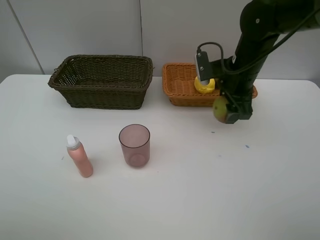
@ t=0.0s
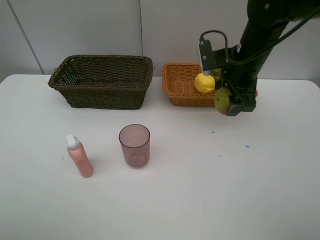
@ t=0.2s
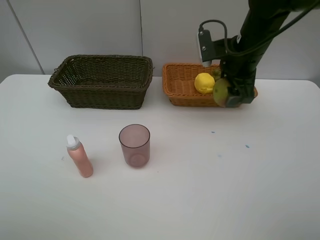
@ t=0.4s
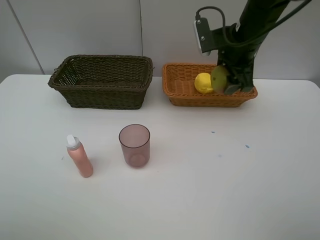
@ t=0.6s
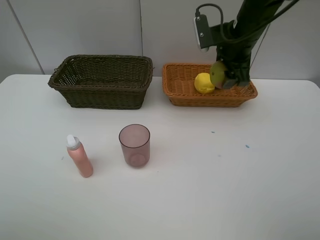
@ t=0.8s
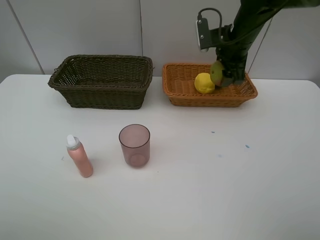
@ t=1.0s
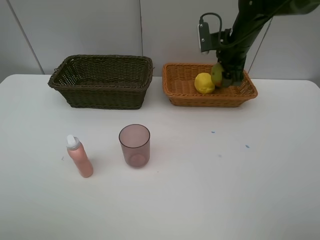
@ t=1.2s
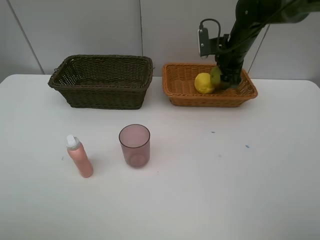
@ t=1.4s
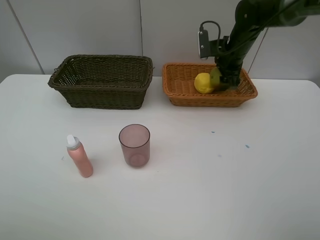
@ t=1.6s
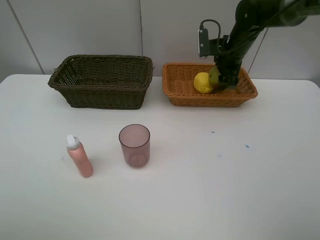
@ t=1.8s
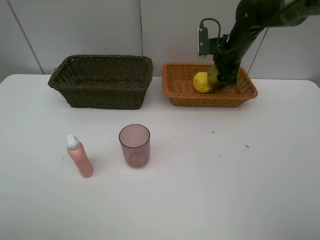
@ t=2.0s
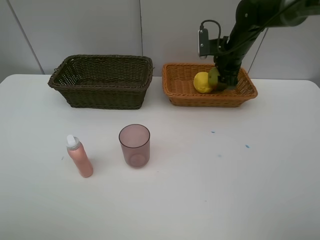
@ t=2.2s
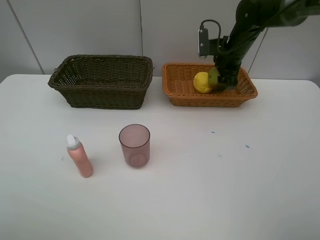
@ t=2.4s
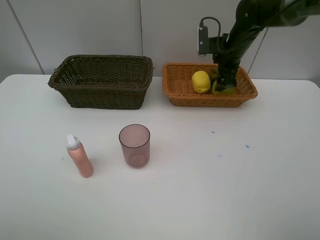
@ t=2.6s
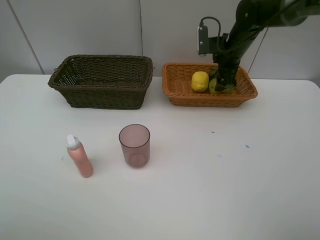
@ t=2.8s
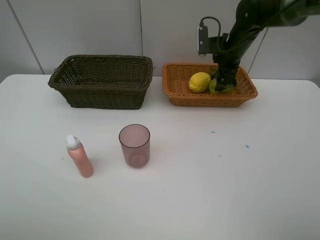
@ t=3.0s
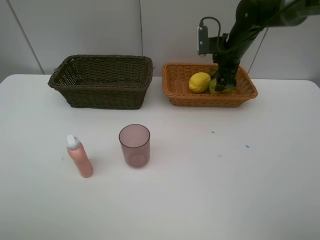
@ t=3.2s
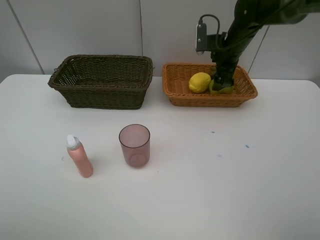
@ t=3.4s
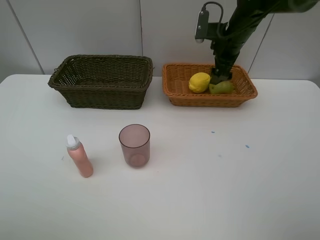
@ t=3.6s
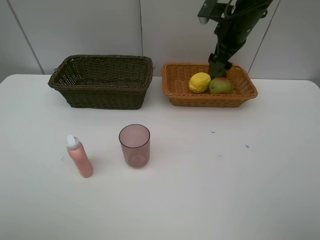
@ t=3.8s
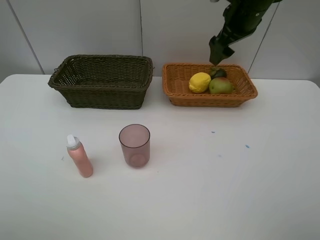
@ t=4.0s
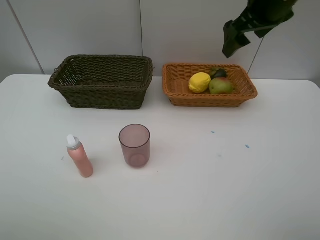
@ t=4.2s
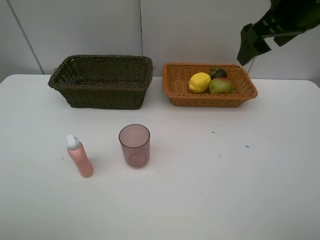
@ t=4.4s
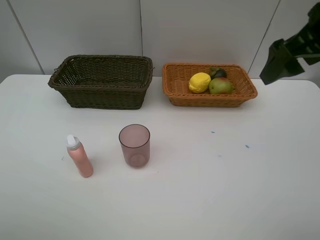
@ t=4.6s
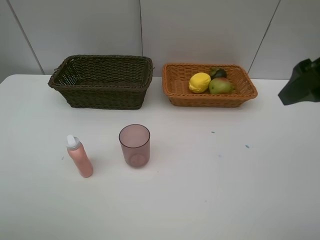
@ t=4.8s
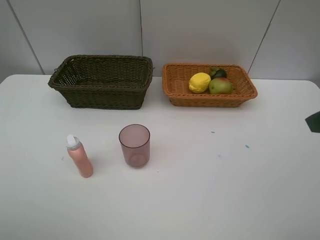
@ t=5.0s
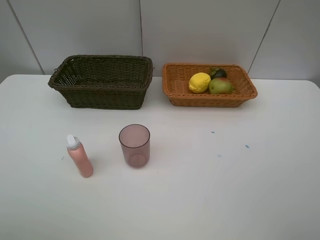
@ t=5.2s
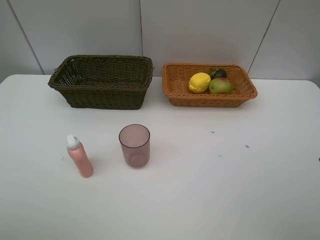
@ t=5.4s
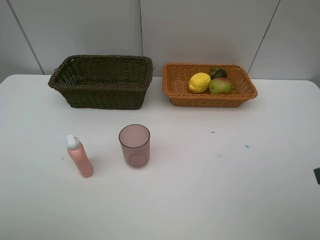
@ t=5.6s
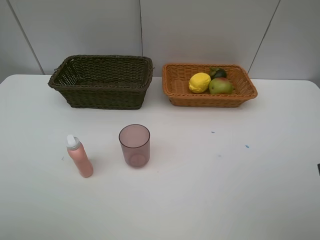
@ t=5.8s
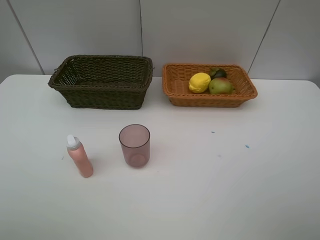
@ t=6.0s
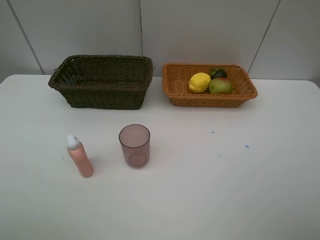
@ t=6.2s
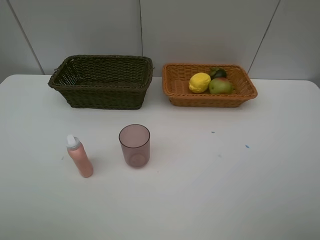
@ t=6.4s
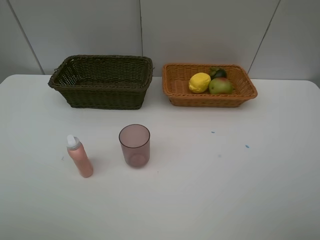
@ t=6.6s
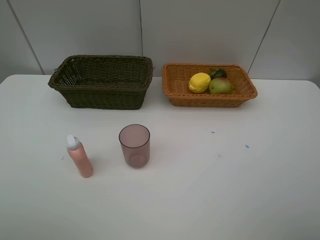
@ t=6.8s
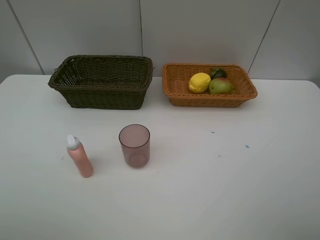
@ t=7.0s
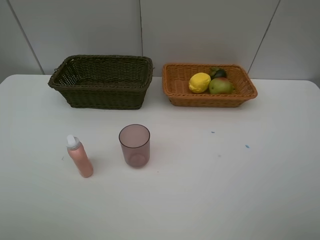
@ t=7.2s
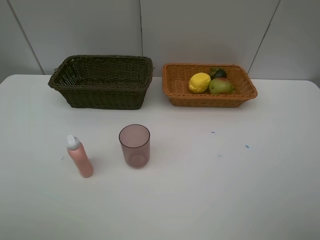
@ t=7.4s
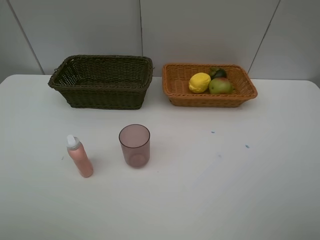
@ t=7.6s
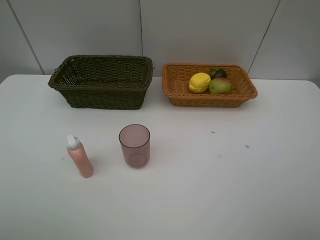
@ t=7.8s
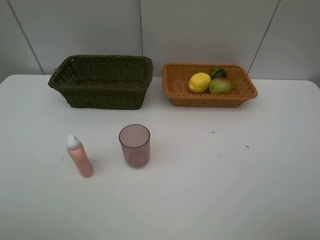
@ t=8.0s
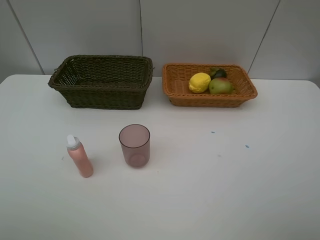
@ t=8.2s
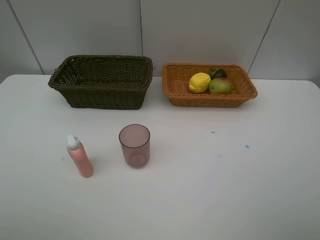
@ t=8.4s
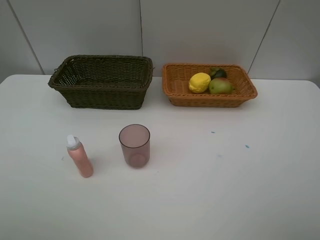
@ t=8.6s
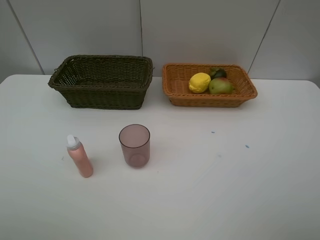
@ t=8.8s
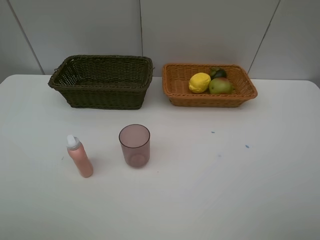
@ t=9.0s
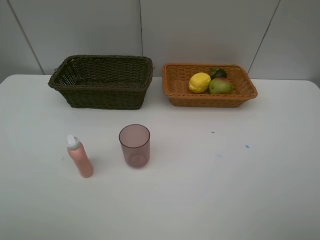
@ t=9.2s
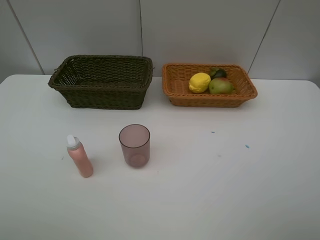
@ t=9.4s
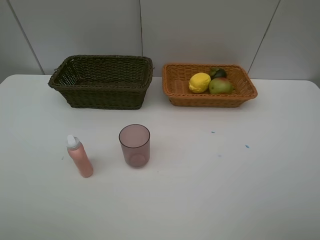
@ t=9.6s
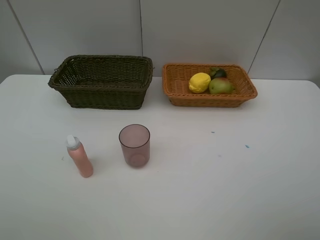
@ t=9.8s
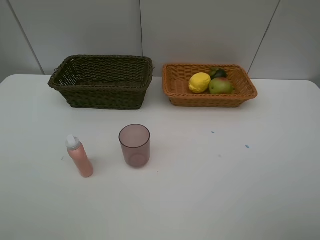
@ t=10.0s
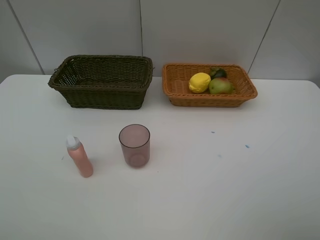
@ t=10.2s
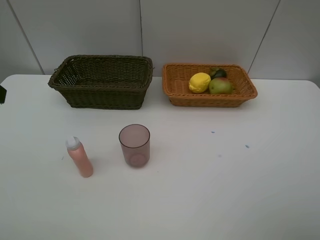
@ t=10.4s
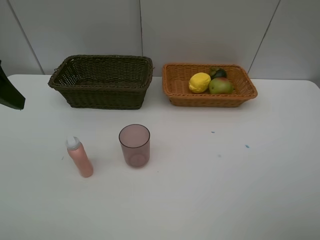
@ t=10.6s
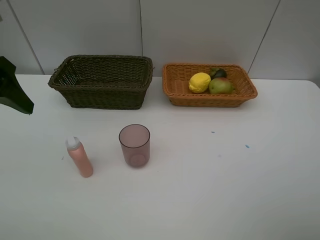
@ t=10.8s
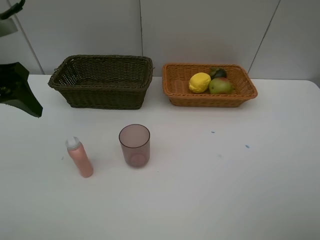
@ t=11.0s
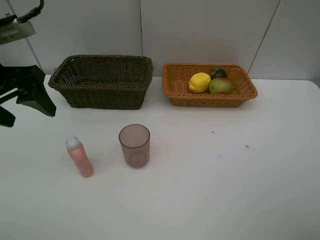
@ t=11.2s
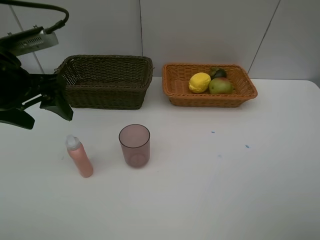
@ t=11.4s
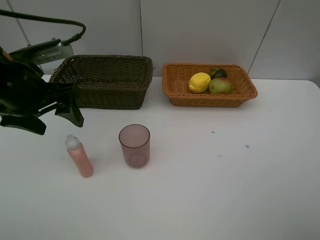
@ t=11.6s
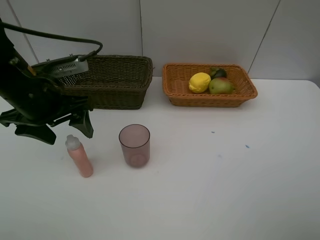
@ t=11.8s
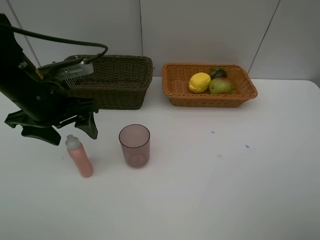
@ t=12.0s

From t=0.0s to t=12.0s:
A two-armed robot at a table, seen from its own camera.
Task of the whole recording: Place multiple objects separately in different baskets.
Step, from t=0.4s to t=3.6s: Place the pear in the light basket with right gripper.
From t=0.0s to t=1.6s: The right gripper goes approximately 10 cm forward.
From t=1.6s to t=3.0s: The right gripper opens its fingers.
From t=3.0s to t=4.4s: The right gripper is displaced backward and upward by some 20 cm.
From t=4.4s to t=6.0s: The right gripper shifts approximately 25 cm backward.
From t=7.6s to t=9.0s: Both grippers stay about where they are.
From t=10.4s to t=12.0s: The left gripper travels downward, forward and to the right by roughly 15 cm.

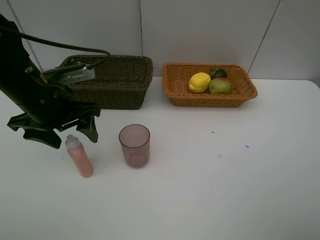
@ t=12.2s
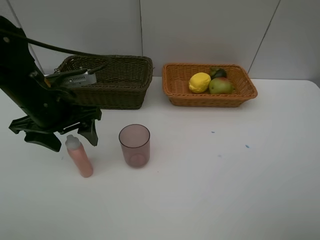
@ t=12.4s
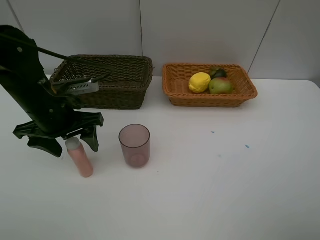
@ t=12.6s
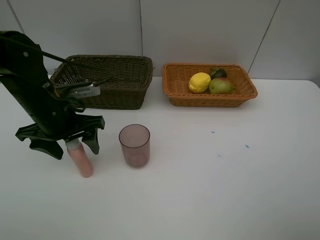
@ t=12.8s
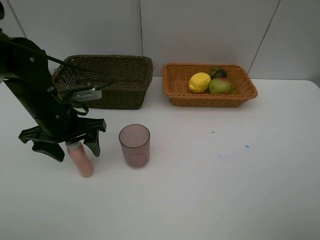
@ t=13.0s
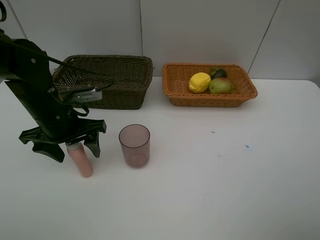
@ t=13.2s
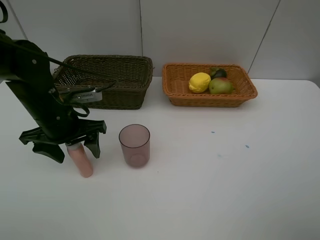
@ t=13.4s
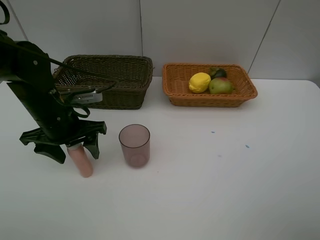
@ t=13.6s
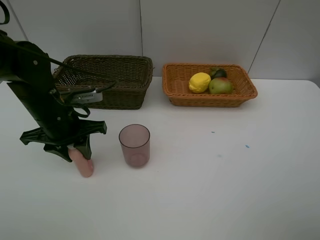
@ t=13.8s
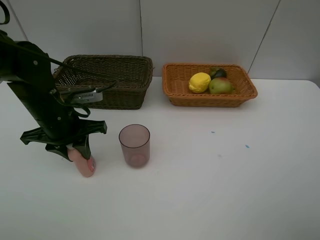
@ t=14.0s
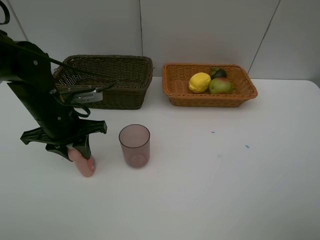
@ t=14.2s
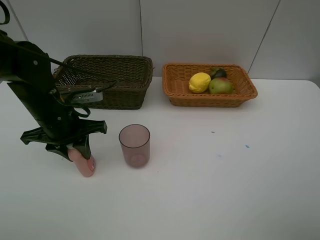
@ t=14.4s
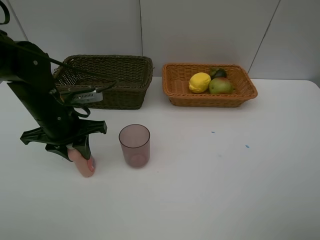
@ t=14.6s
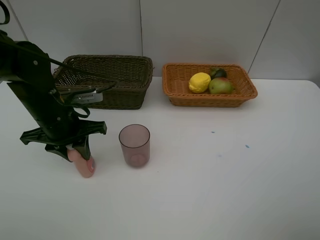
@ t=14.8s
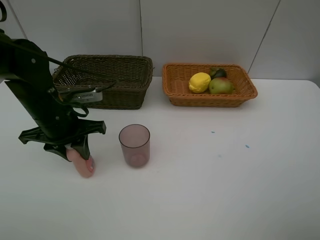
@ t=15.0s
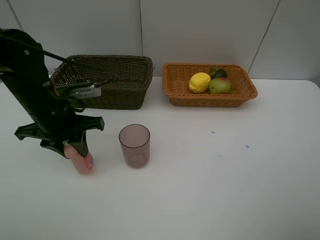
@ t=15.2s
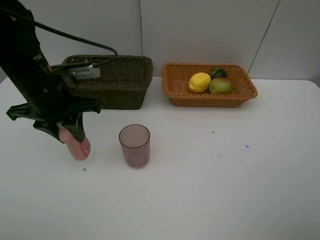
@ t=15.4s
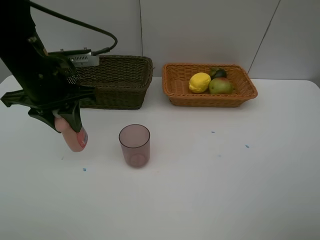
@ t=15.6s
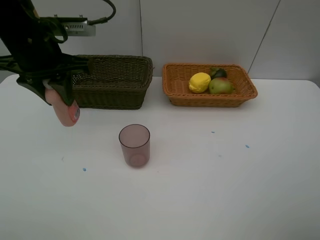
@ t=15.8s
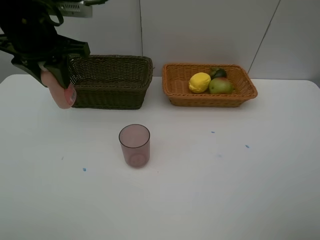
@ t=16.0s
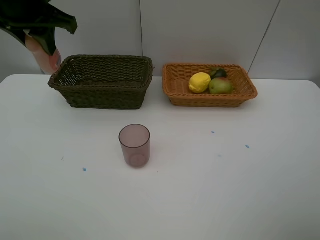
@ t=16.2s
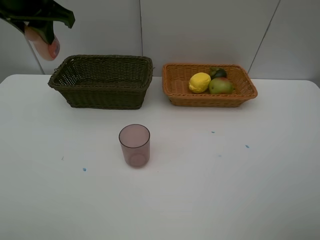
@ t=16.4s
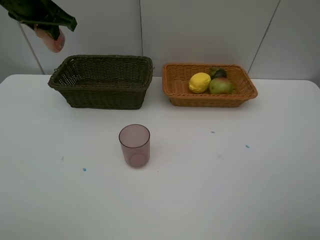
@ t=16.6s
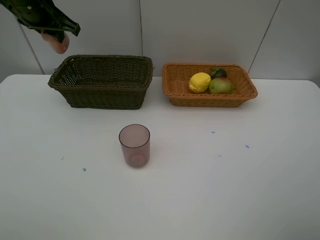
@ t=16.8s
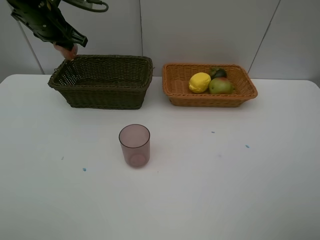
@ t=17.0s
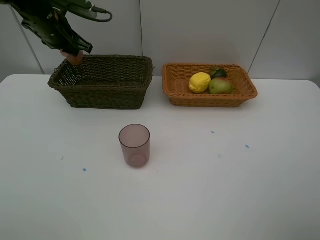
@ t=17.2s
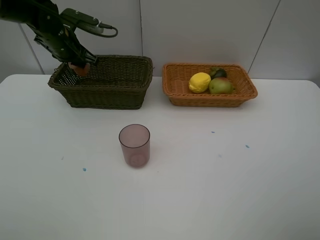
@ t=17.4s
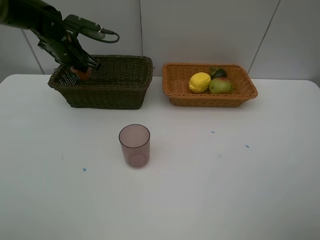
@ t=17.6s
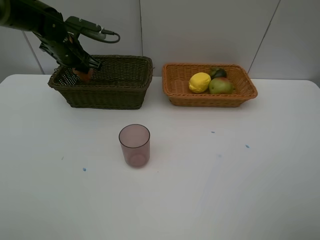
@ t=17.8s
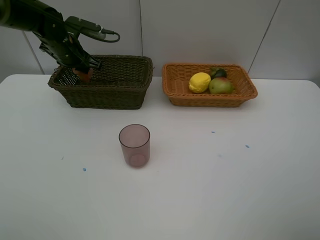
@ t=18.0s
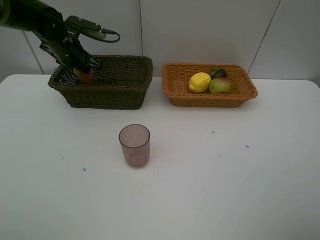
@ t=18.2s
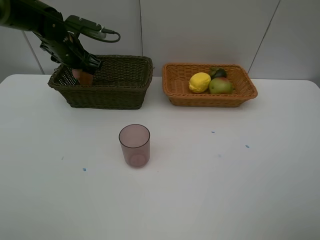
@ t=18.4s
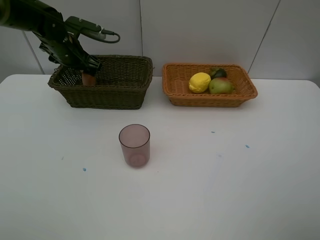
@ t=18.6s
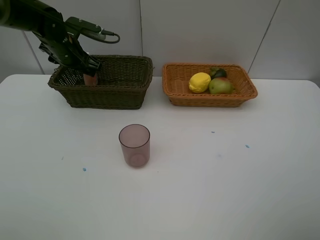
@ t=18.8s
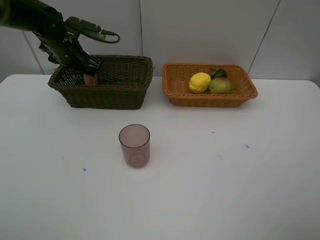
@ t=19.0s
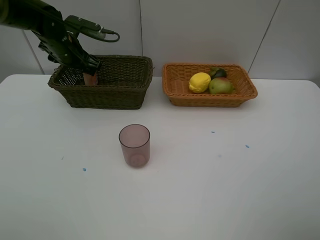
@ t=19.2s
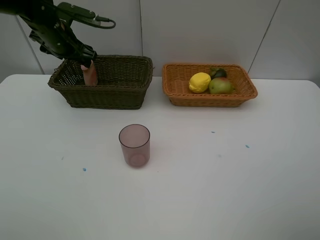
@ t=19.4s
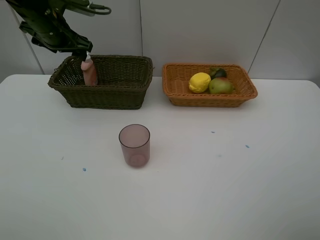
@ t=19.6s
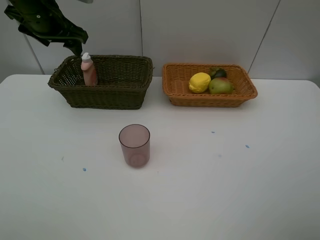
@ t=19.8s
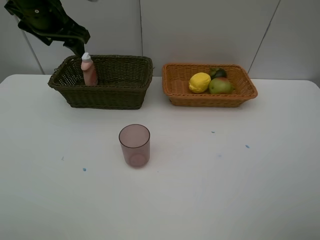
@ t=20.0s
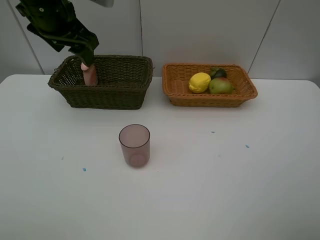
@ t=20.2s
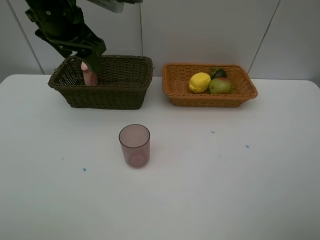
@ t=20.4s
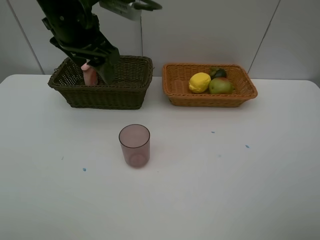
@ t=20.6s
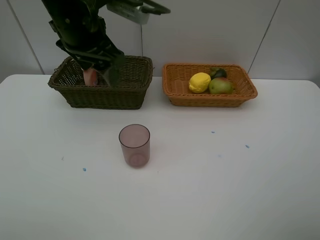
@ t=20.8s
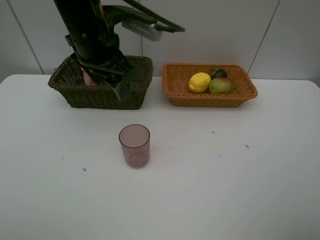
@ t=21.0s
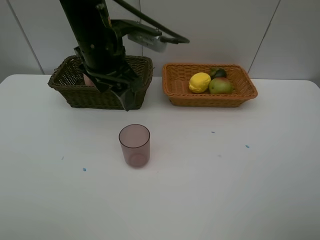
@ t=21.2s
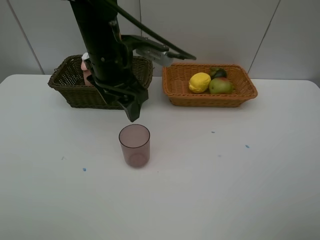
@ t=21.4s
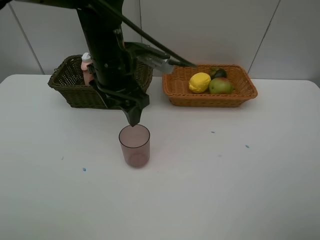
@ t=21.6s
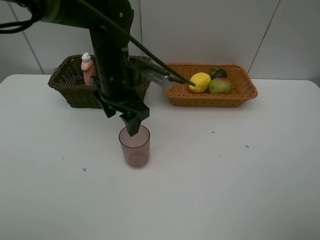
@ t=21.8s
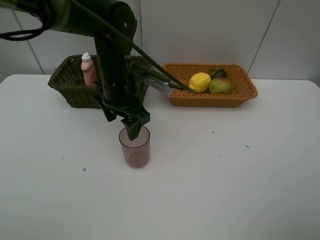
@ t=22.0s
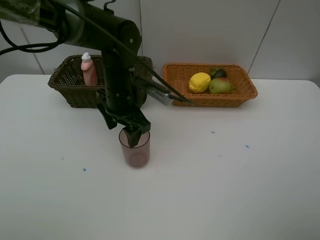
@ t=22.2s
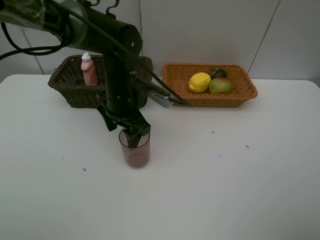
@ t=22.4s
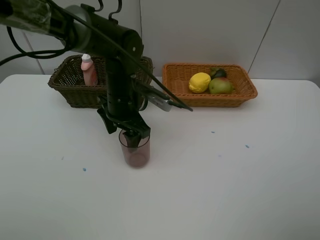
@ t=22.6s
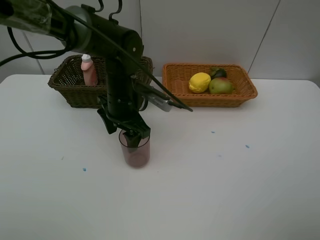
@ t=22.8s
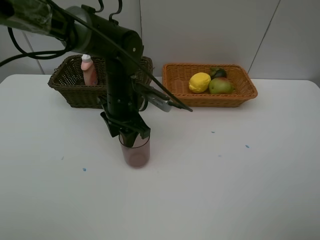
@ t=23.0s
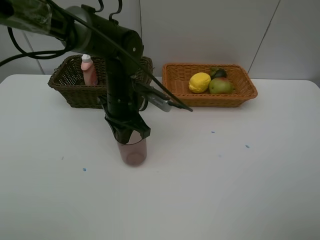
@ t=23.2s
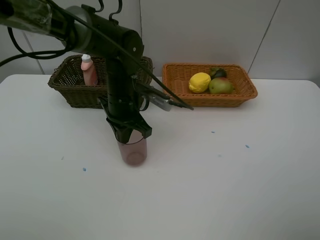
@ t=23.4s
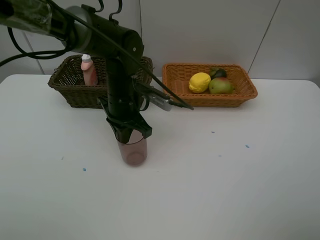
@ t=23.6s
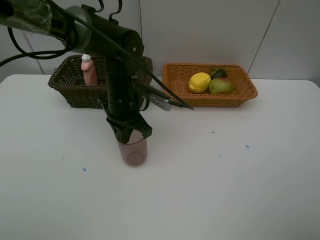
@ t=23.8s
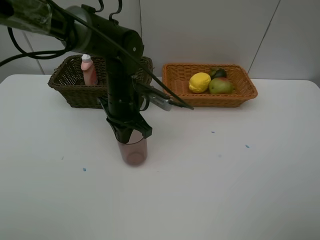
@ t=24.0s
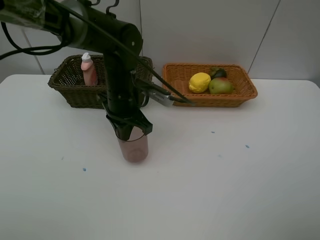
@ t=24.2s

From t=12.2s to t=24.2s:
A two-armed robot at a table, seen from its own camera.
Task of the whole recording: Place multiple objects separately in different baskets.
From t=12.2s to t=13.8s: The left gripper closes its fingers.
From t=13.8s to t=15.2s: There are only small adjustments of the grippers.
From t=15.2s to t=16.6s: The left gripper is displaced upward and forward by roughly 20 cm.
From t=16.6s to t=18.2s: The left gripper travels downward and forward by approximately 15 cm.
From t=18.2s to t=19.8s: The left gripper moves upward and backward, roughly 10 cm, and opens.
From t=19.8s to t=21.2s: The left gripper shifts approximately 15 cm to the right and backward.
From t=21.2s to t=22.6s: The left gripper heads downward, covering approximately 10 cm.
From t=22.6s to t=24.2s: The left gripper closes up.
